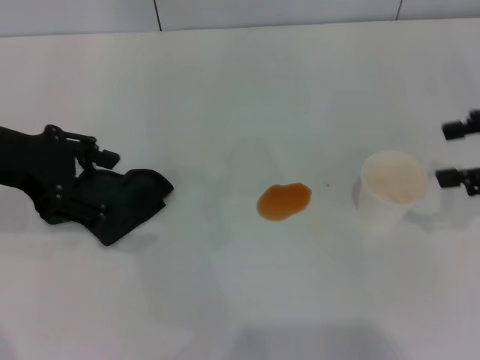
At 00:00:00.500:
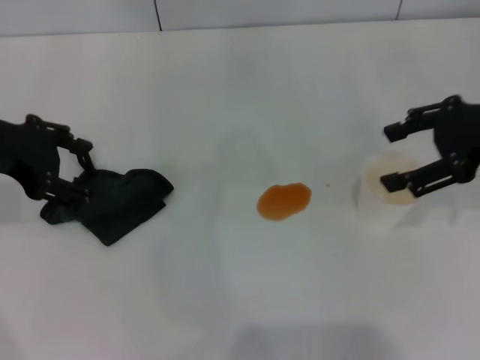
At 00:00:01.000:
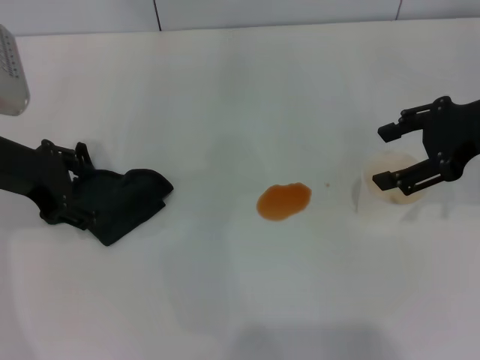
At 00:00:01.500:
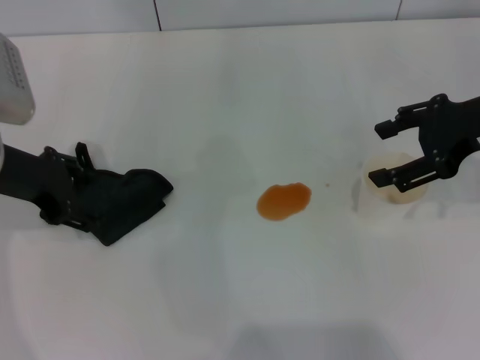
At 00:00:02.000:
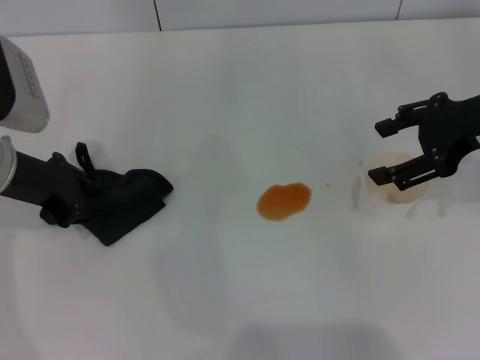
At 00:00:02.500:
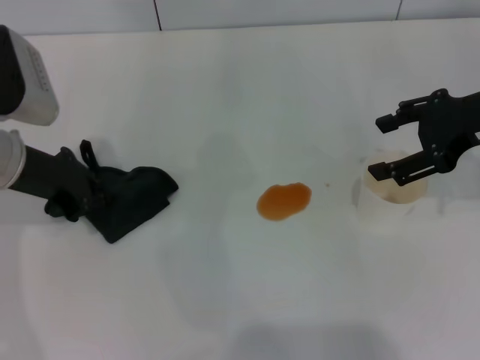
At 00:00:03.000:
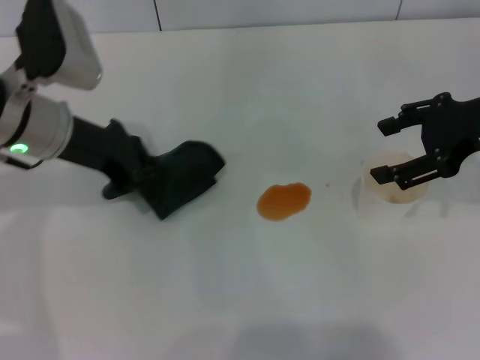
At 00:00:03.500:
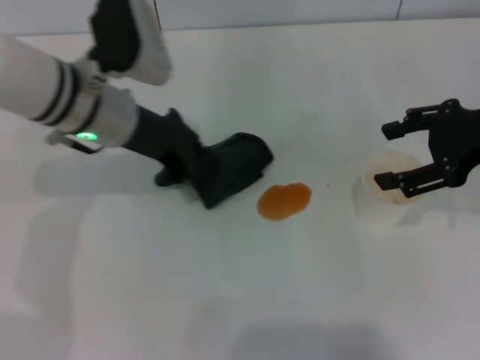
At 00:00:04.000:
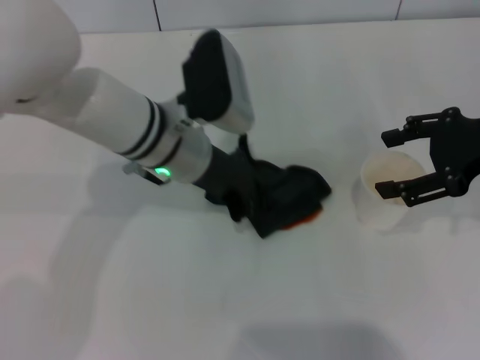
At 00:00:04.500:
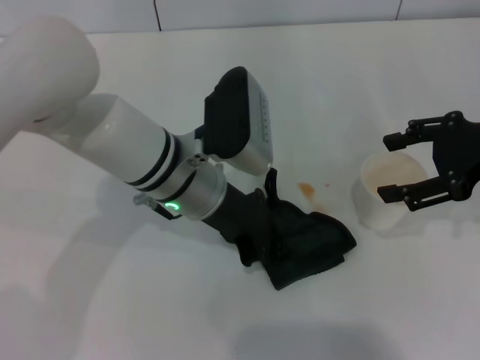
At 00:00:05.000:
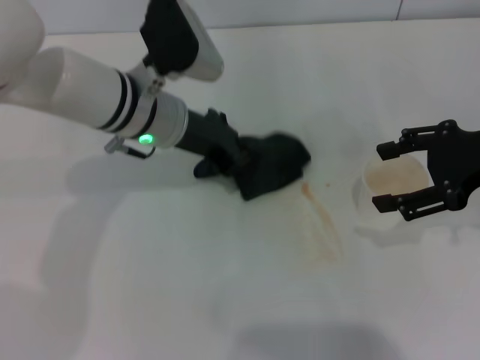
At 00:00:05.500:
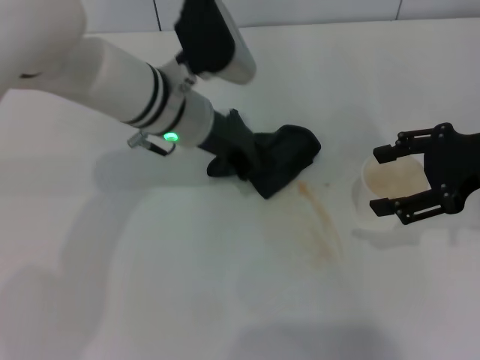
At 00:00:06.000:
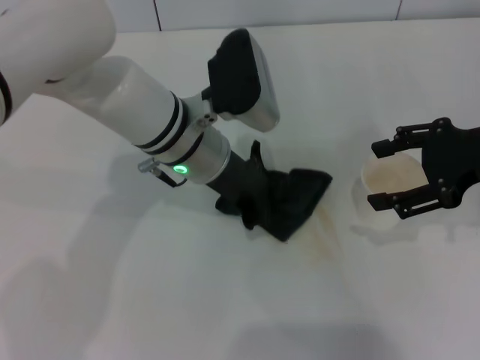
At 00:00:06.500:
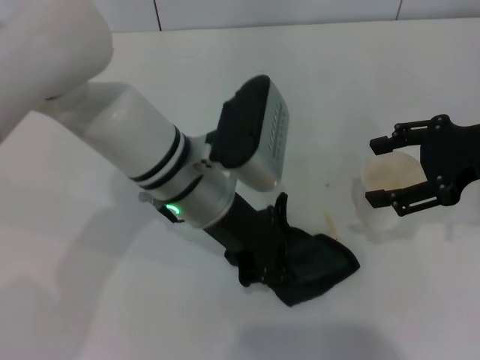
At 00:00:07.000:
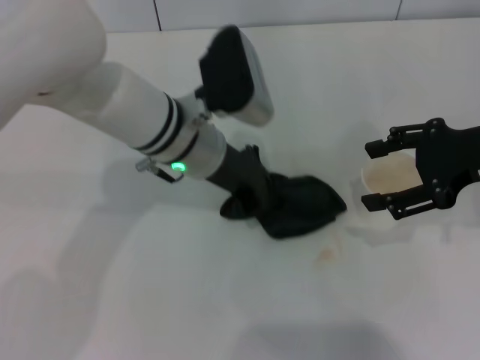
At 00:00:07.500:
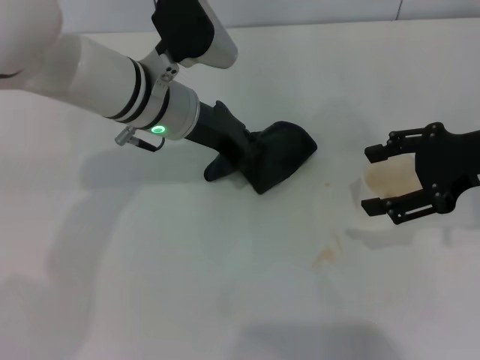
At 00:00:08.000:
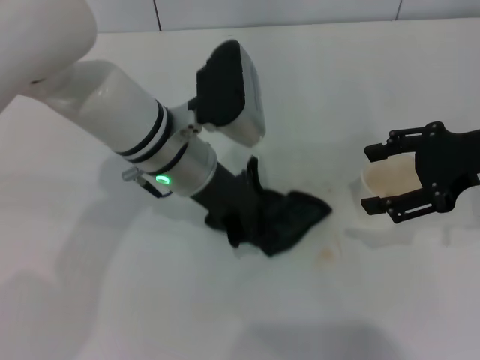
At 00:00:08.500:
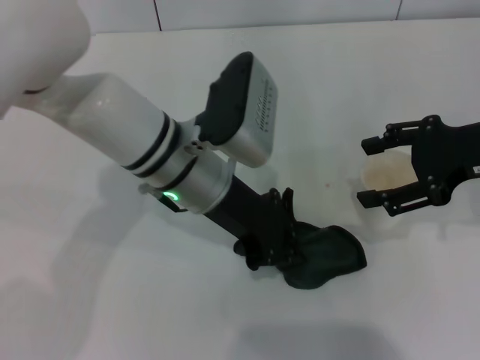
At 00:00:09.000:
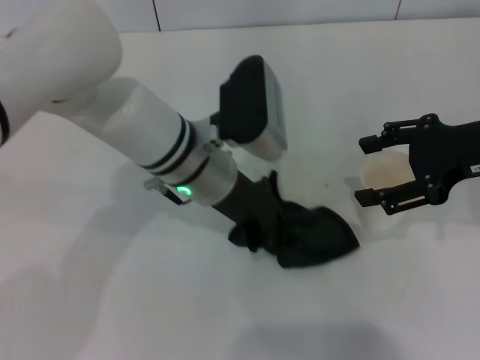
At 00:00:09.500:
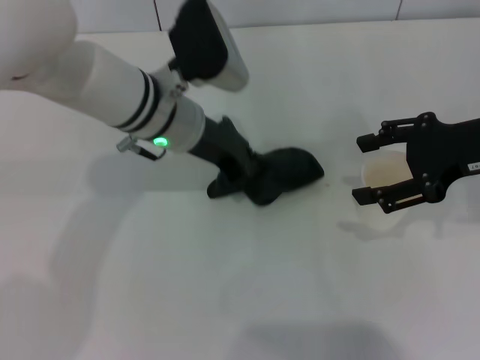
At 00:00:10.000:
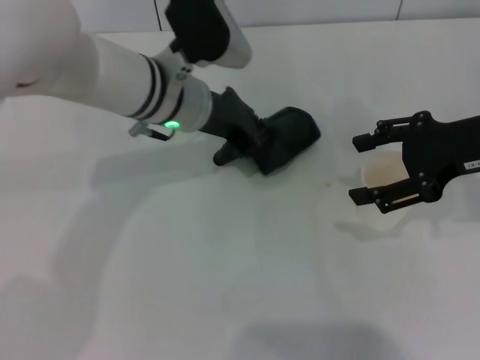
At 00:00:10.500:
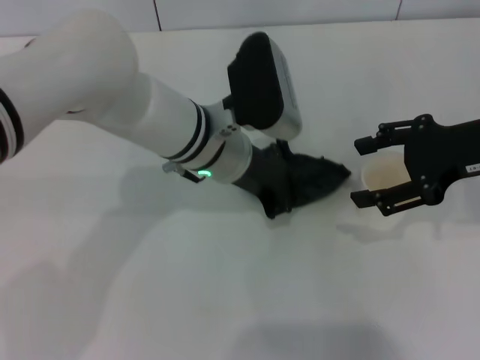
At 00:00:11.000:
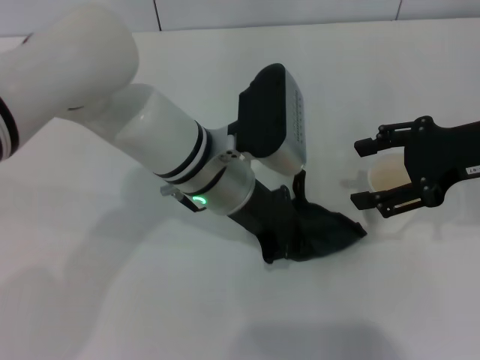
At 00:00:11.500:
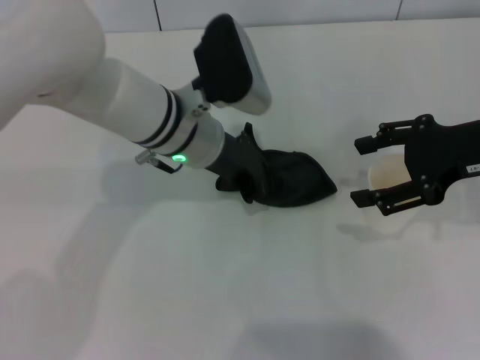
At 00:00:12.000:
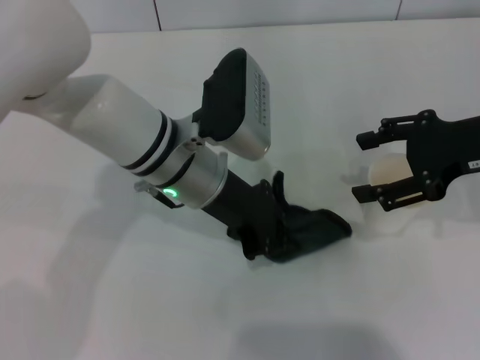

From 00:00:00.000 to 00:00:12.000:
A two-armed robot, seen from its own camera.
Step, from 00:00:00.000 to 00:00:02.000: Grasp the rag with the left gripper.
From 00:00:00.000 to 00:00:02.000: The right gripper is displaced to the left by approximately 5 cm. The left gripper goes roughly 5 cm downward, and closes.
From 00:00:02.000 to 00:00:04.000: The left gripper is displaced to the right by some 15 cm, and closes its fingers.
From 00:00:04.000 to 00:00:06.000: The grippers make only small movements.
From 00:00:06.000 to 00:00:08.000: The left gripper goes forward and backward, approximately 5 cm each way, reversing 2 times.
From 00:00:10.000 to 00:00:12.000: The left gripper is displaced backward by about 5 cm.

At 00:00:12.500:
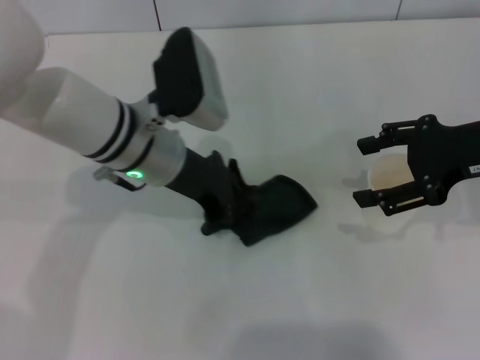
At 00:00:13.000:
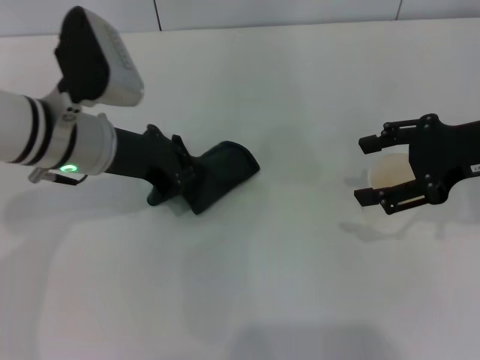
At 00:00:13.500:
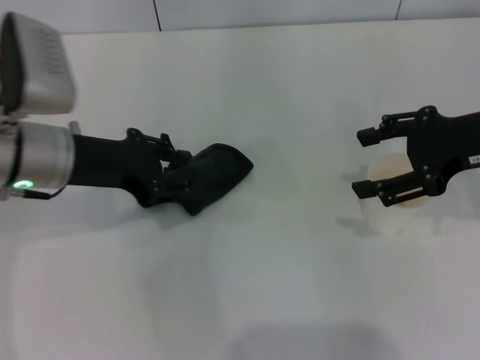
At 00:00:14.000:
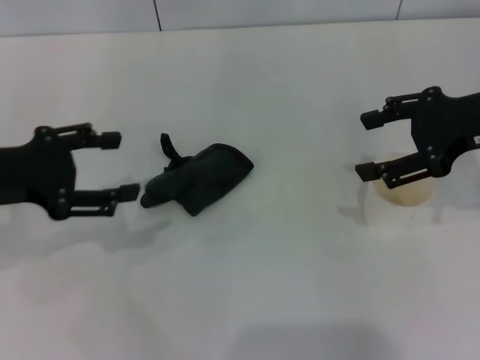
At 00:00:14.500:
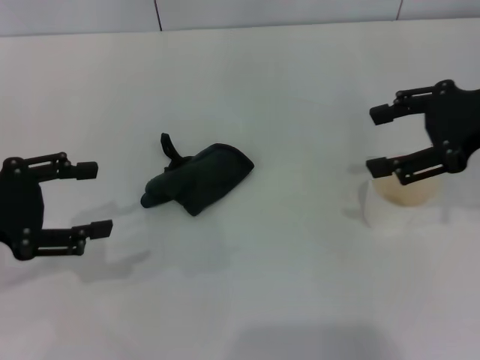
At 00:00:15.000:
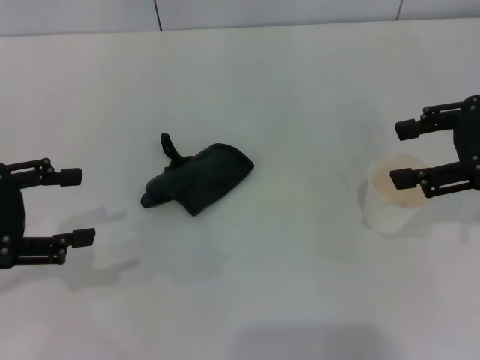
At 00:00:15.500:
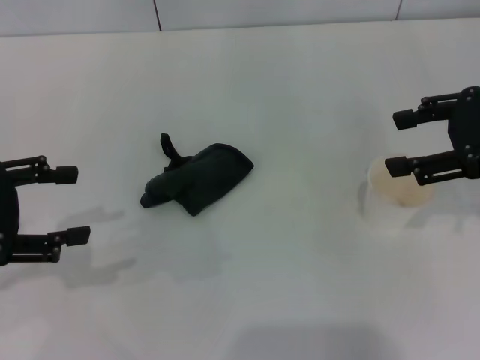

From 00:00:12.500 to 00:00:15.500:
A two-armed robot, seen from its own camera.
From 00:00:12.500 to 00:00:14.000: The left gripper heads to the left, covering approximately 20 cm, and opens.
From 00:00:14.000 to 00:00:15.500: The left gripper changes place by some 5 cm.

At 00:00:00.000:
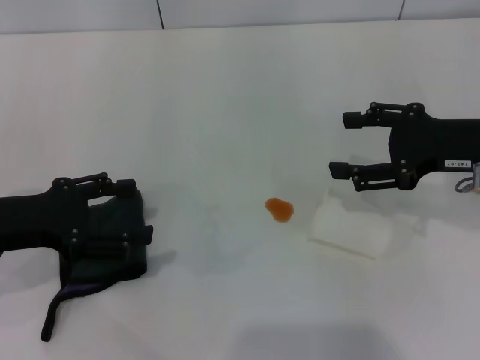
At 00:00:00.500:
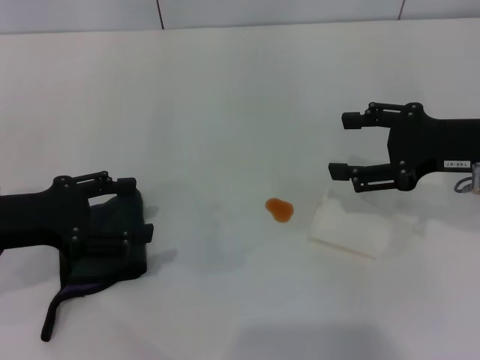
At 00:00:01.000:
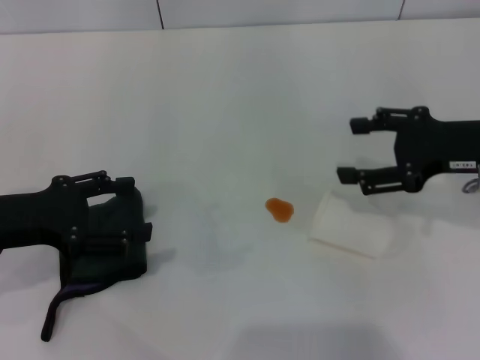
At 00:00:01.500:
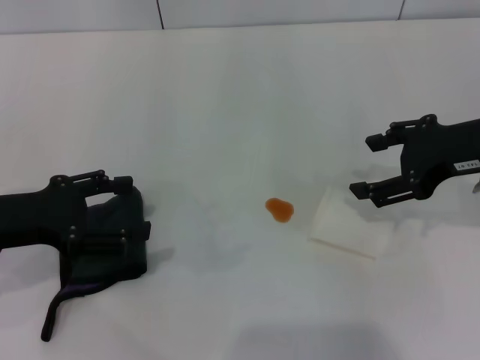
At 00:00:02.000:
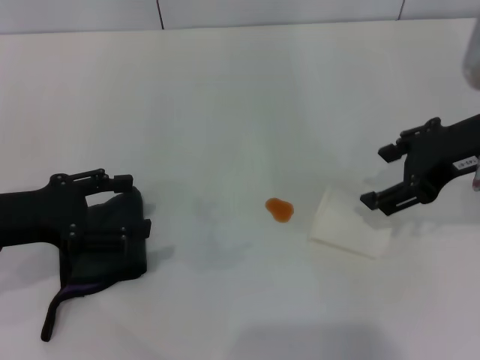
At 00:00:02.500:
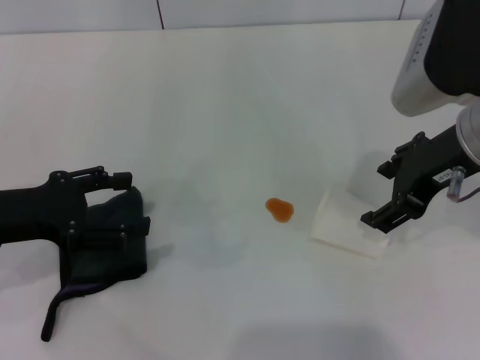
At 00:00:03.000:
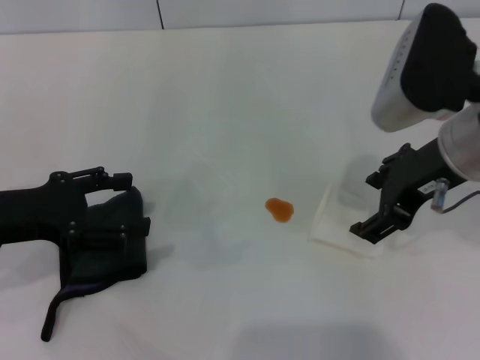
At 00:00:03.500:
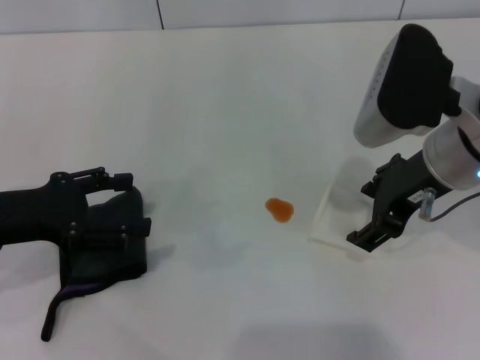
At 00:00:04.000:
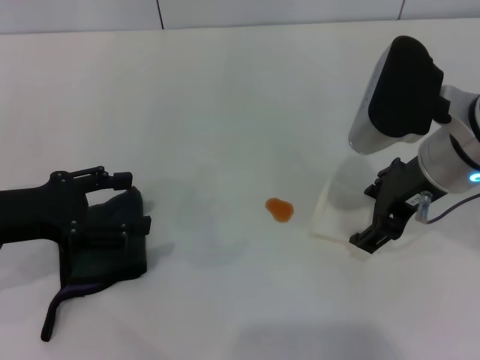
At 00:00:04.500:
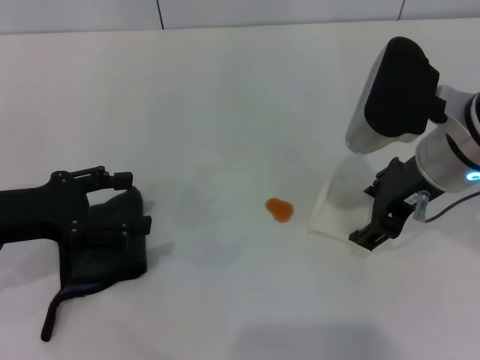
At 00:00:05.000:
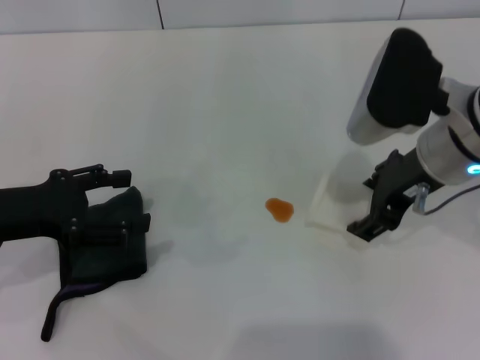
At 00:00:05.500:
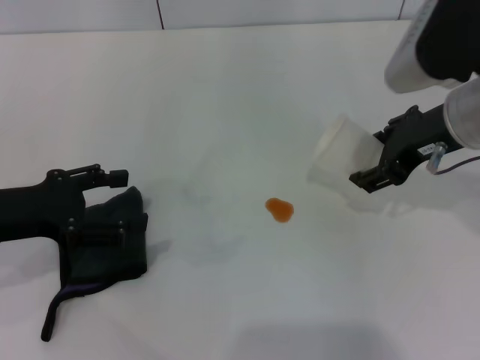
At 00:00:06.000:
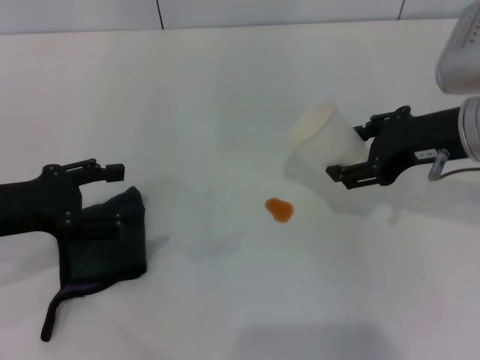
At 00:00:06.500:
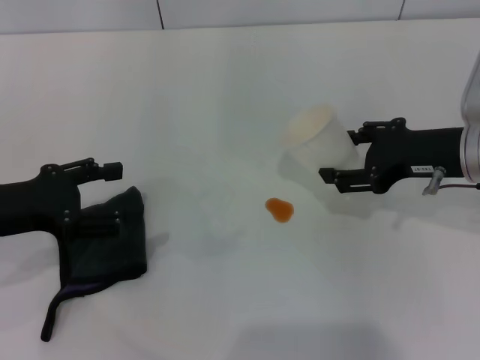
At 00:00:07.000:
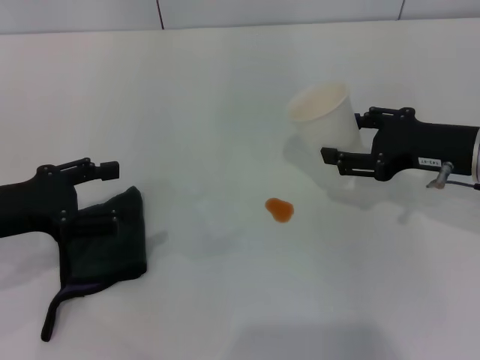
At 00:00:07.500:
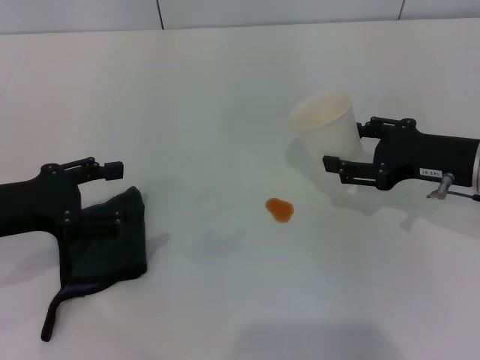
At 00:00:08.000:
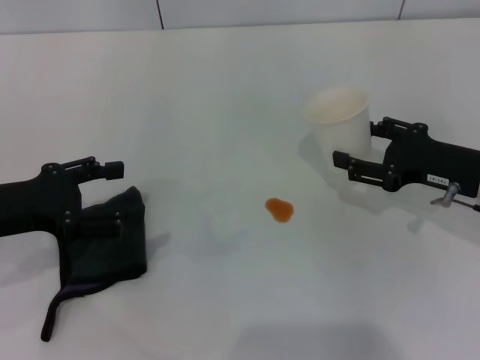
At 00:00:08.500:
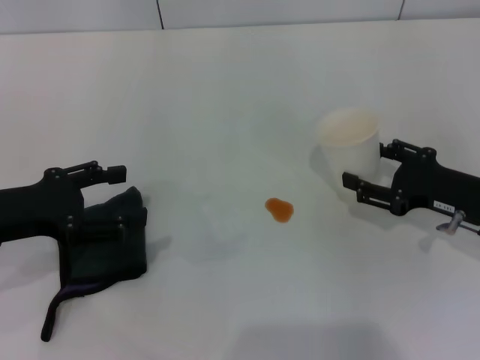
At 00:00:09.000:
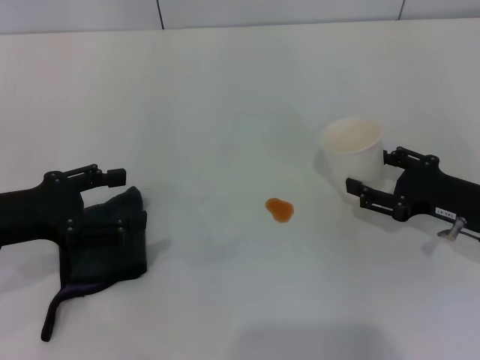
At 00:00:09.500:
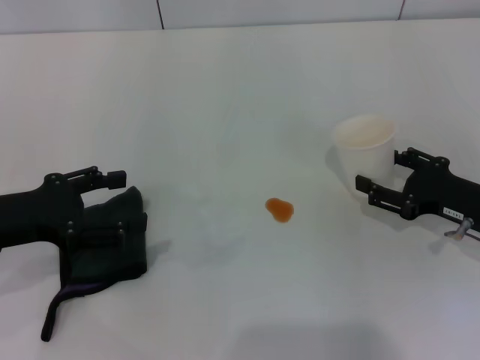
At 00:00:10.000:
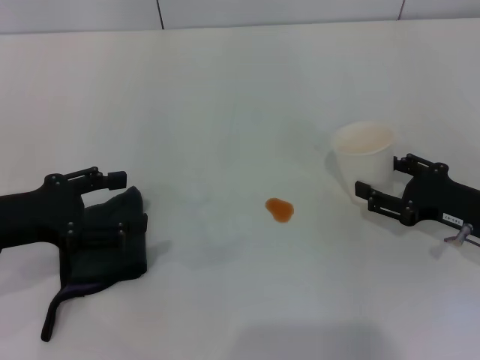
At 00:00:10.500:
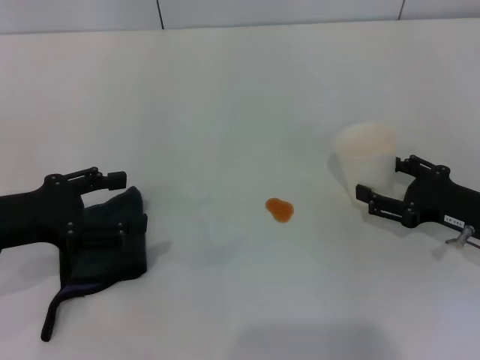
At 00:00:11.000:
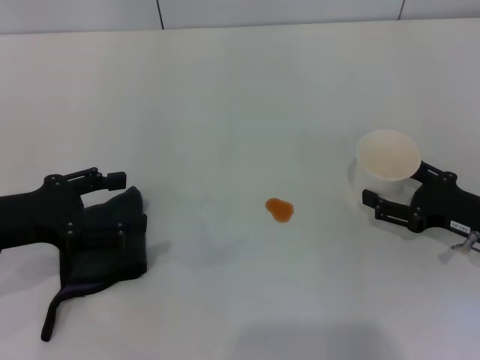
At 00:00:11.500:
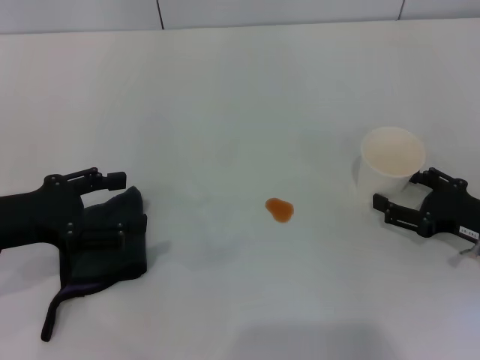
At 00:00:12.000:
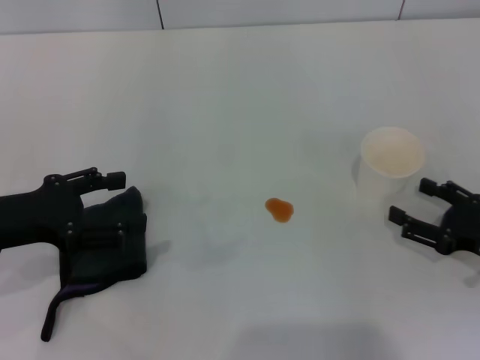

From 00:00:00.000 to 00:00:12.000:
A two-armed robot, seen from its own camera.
Step, from 00:00:00.000 to 00:00:04.500: Grasp the paper cup with the right gripper.
Step, from 00:00:05.000 to 00:00:12.000: Stand the paper cup upright with the right gripper.
From 00:00:00.000 to 00:00:02.000: The right gripper goes approximately 5 cm upward.
From 00:00:02.000 to 00:00:04.000: The right gripper goes about 5 cm to the left.
From 00:00:06.000 to 00:00:08.000: The right gripper is displaced downward and to the right by approximately 10 cm.
From 00:00:08.000 to 00:00:10.000: The right gripper ends up some 5 cm from where it was.
From 00:00:10.000 to 00:00:12.000: The right gripper ends up about 5 cm from where it was.
